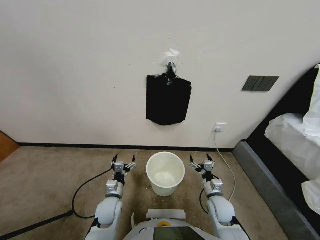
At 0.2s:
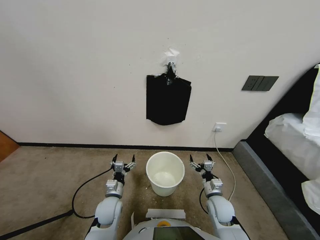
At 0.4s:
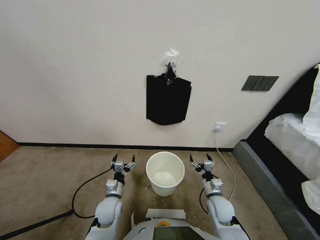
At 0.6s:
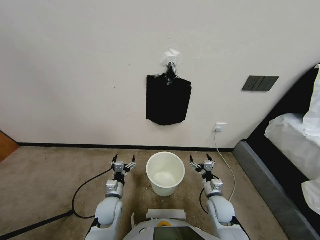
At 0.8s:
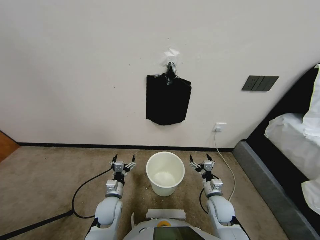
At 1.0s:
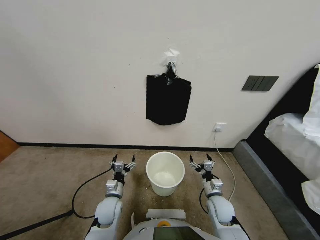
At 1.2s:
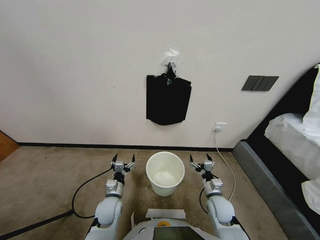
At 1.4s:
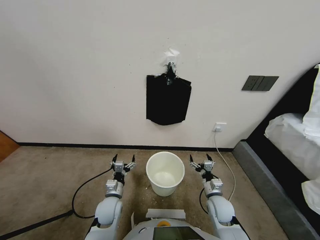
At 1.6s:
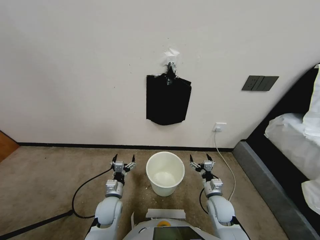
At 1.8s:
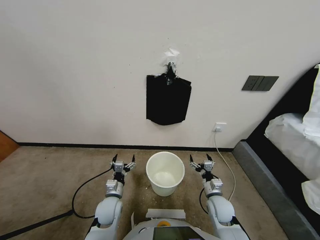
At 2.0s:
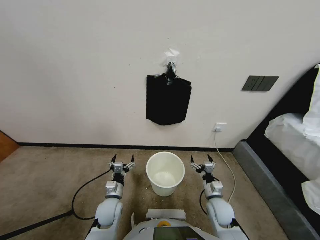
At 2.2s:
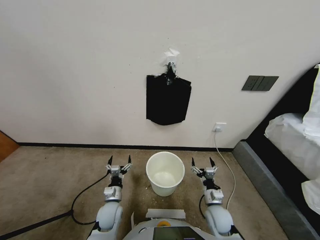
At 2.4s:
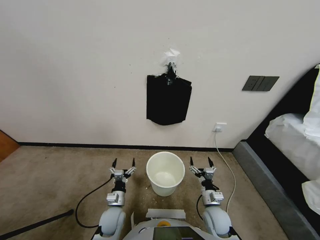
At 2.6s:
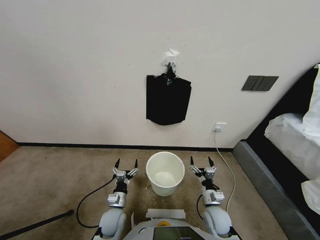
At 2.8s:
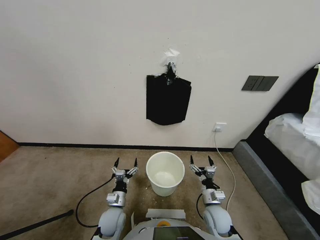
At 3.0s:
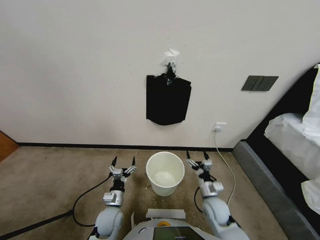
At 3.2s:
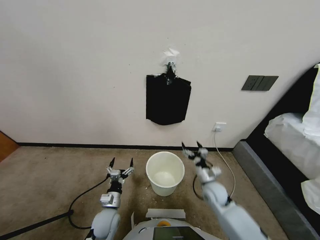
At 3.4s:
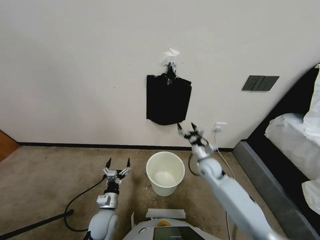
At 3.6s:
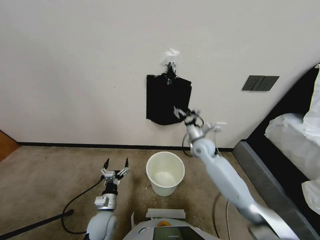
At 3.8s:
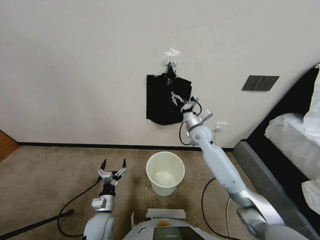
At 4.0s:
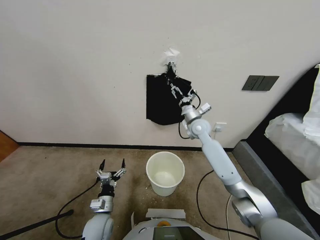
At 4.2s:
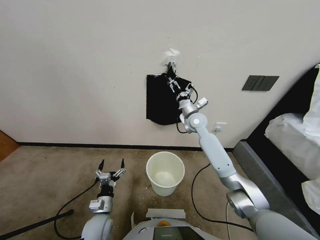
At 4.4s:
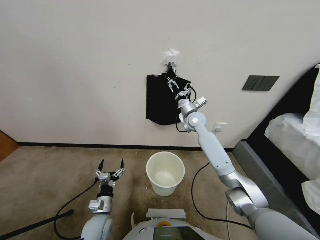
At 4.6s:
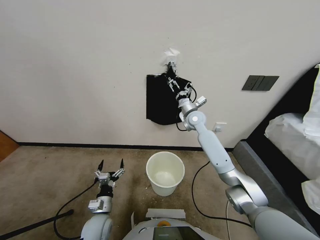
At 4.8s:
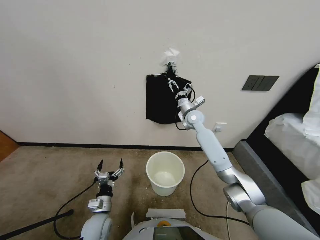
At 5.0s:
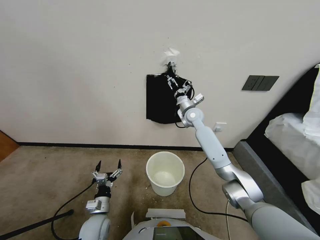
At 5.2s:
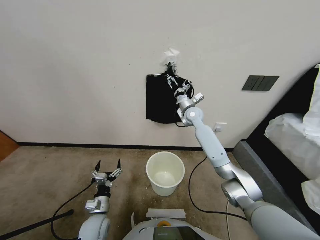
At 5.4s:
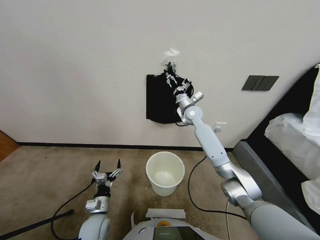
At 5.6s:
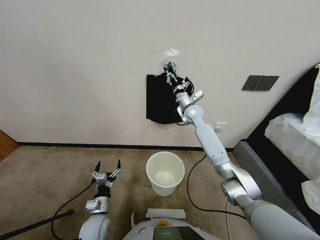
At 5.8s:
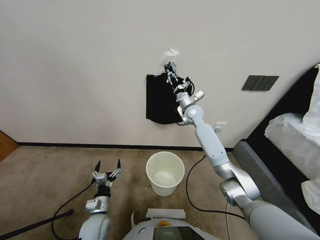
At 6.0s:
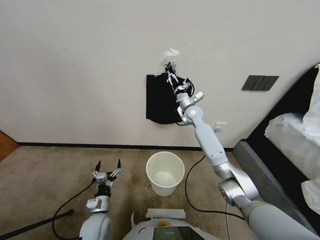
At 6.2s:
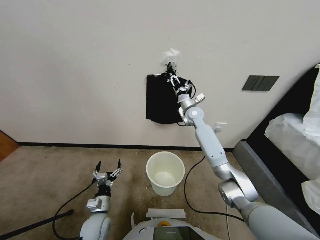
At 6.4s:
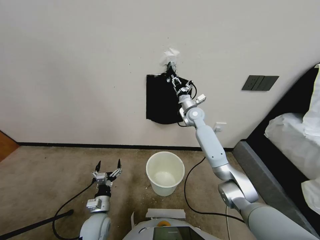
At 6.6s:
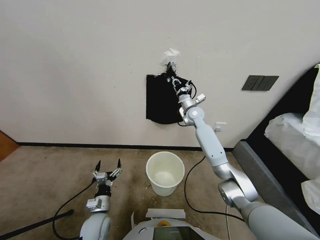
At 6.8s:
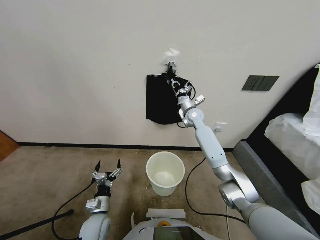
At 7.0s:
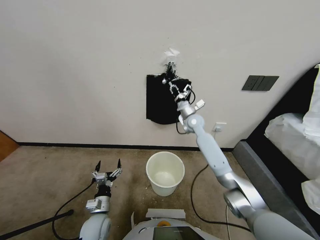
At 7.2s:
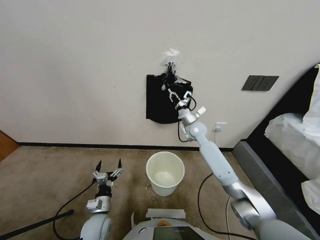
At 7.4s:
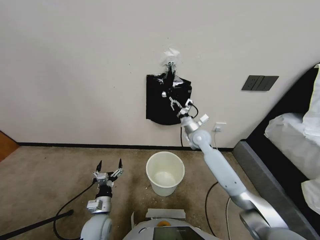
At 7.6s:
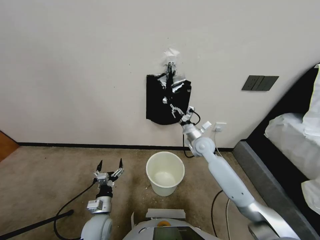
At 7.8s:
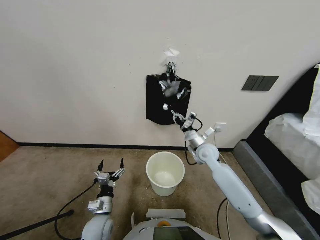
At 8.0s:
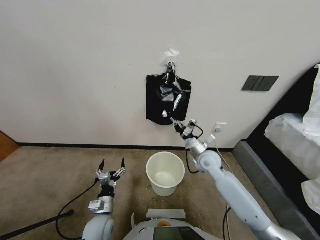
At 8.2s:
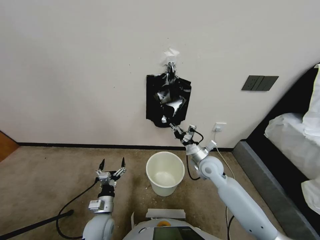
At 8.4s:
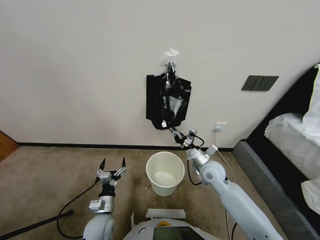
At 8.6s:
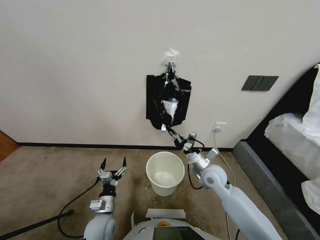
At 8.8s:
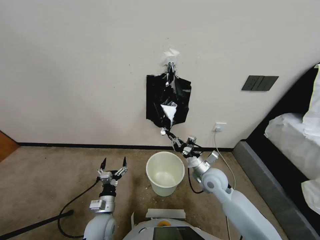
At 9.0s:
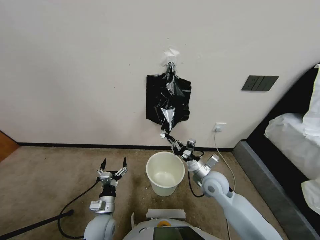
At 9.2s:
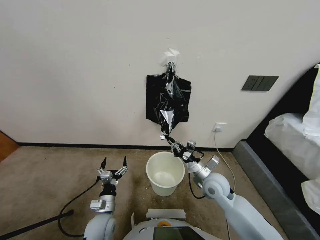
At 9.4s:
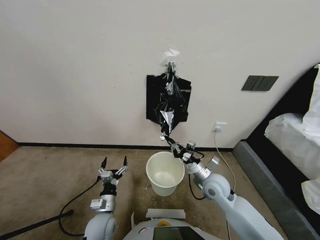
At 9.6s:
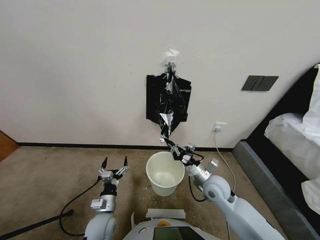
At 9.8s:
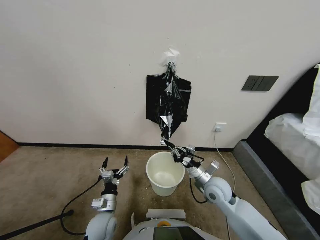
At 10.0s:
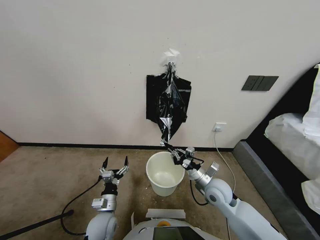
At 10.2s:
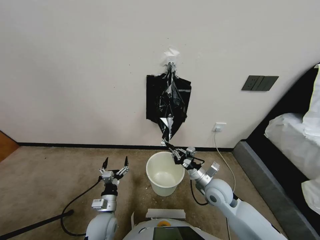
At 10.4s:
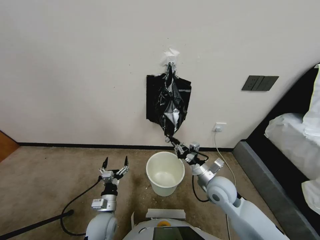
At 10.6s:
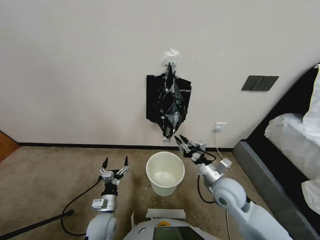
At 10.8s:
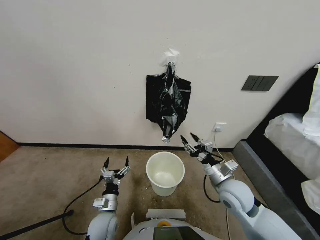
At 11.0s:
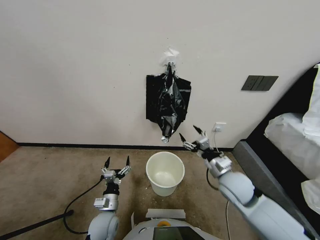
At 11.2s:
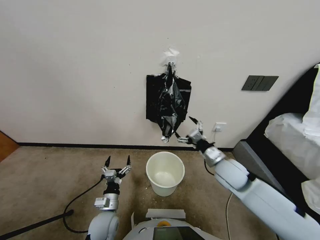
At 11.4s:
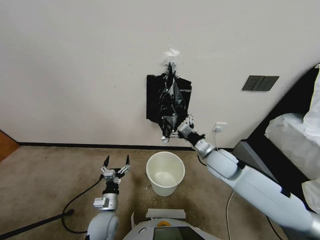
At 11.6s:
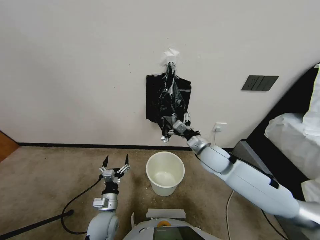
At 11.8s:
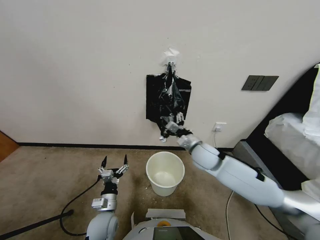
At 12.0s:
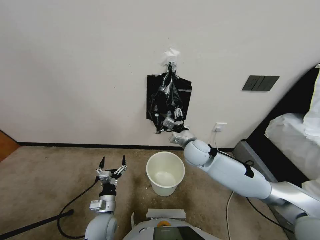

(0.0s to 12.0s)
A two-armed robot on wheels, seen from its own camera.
Task of the whole recording: Place a trash bag onto the trash bin.
1.6s - 3.0s: The grippers make only small movements.
3.0s - 4.4s: The right gripper goes roughly 35 cm forward and upward.
4.4s - 6.0s: The right gripper closes its fingers.
6.0s - 7.6s: The right gripper is displaced backward and downward by some 15 cm, and closes its fingers.
7.6s - 9.0s: The right gripper shifts about 15 cm backward.
9.0s - 10.4s: The grippers stay close to where they were, moving slightly.
10.4s - 12.0s: The right gripper goes about 15 cm forward, to the left and upward, and opens.

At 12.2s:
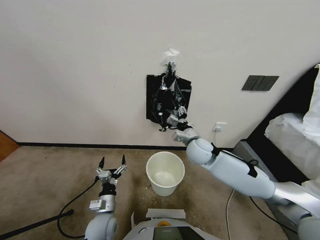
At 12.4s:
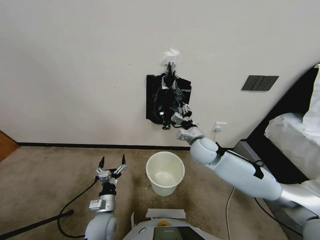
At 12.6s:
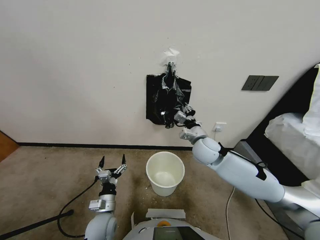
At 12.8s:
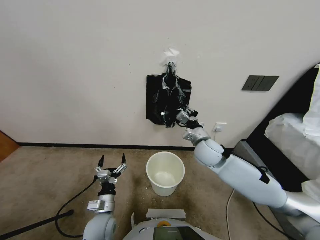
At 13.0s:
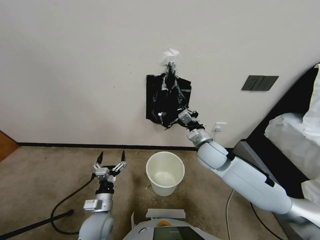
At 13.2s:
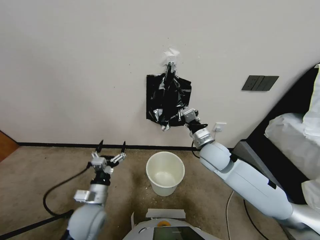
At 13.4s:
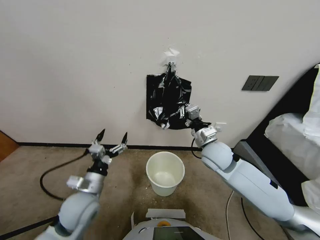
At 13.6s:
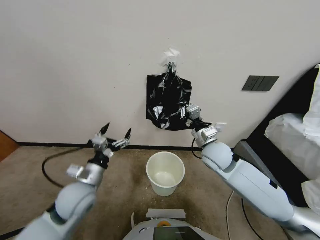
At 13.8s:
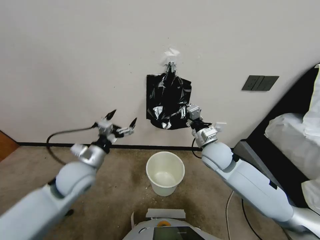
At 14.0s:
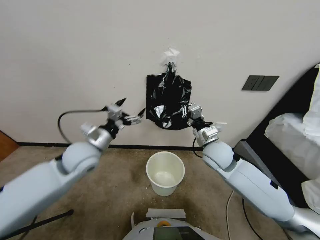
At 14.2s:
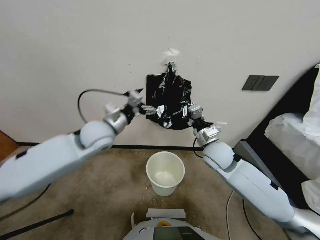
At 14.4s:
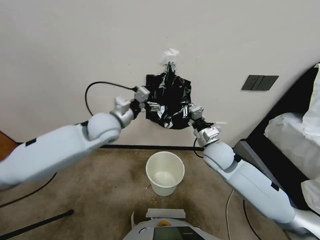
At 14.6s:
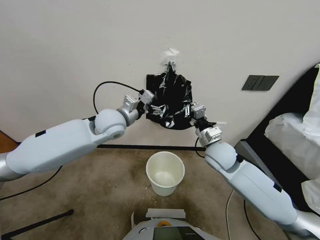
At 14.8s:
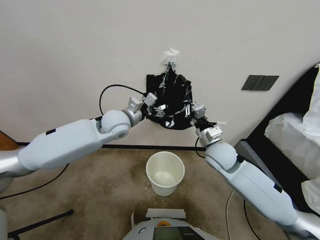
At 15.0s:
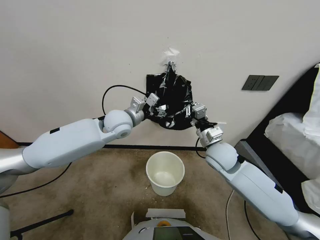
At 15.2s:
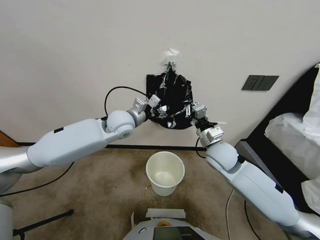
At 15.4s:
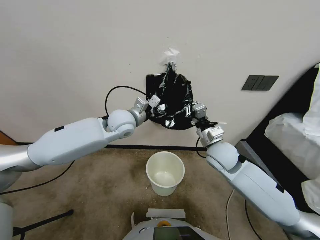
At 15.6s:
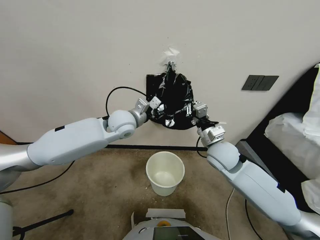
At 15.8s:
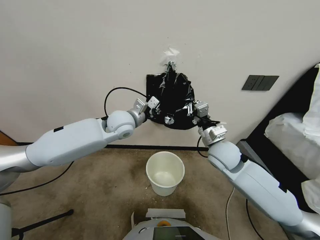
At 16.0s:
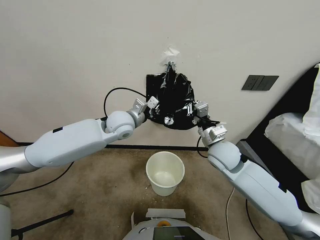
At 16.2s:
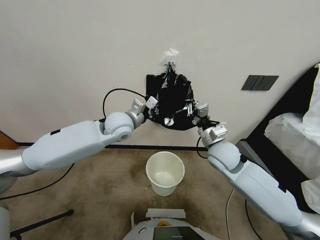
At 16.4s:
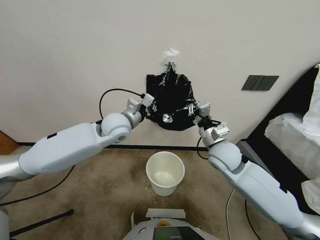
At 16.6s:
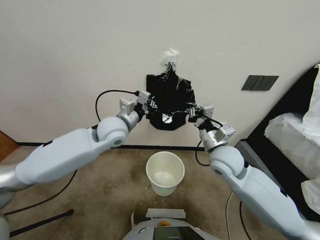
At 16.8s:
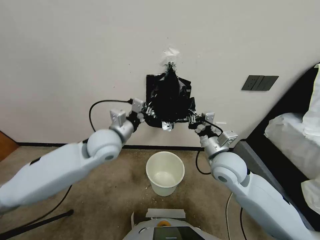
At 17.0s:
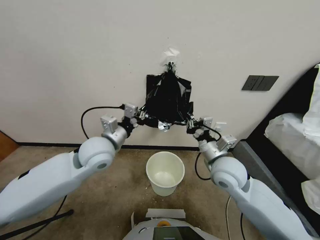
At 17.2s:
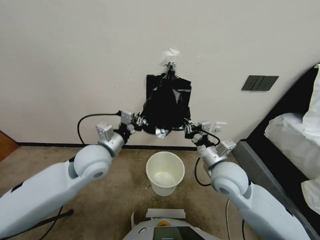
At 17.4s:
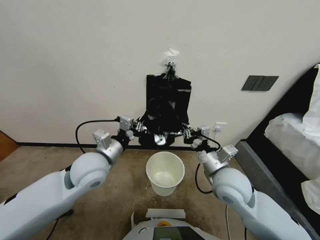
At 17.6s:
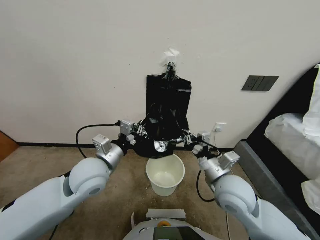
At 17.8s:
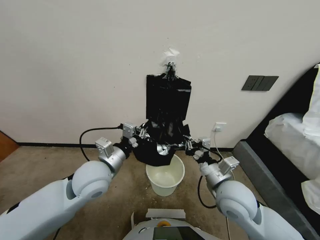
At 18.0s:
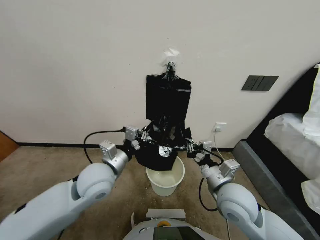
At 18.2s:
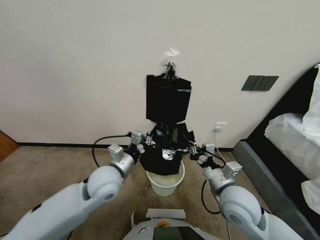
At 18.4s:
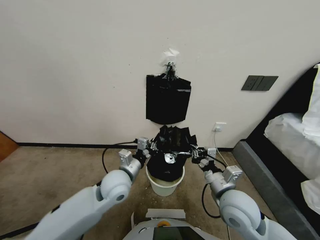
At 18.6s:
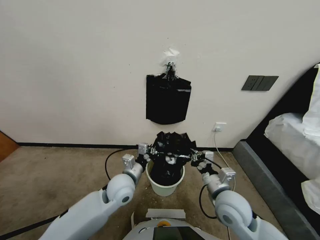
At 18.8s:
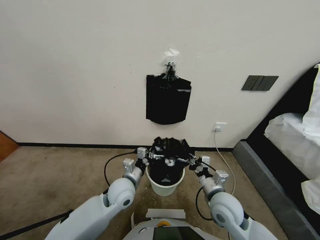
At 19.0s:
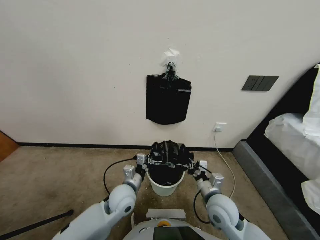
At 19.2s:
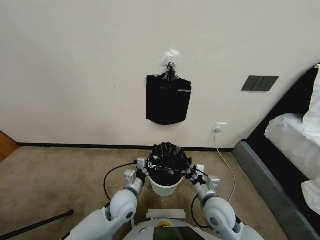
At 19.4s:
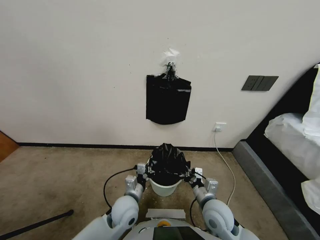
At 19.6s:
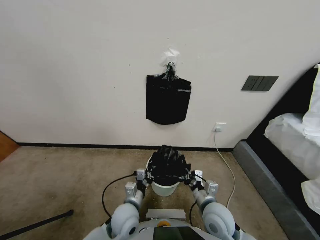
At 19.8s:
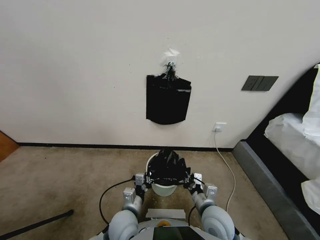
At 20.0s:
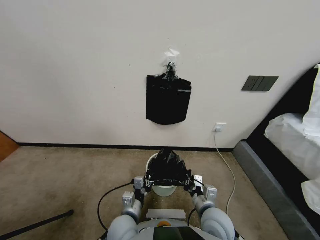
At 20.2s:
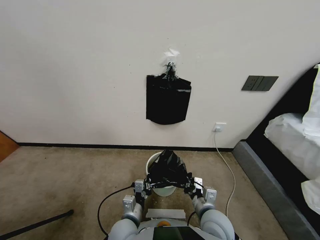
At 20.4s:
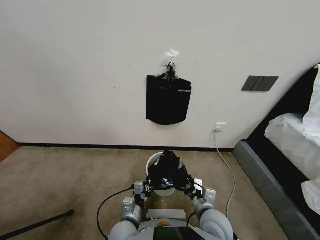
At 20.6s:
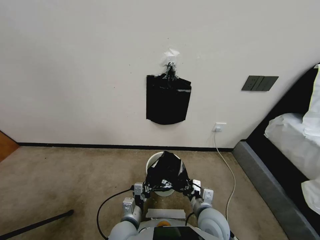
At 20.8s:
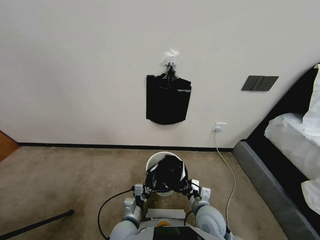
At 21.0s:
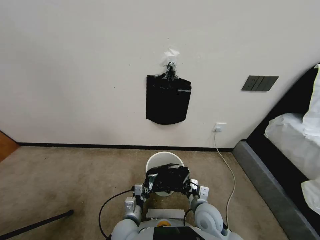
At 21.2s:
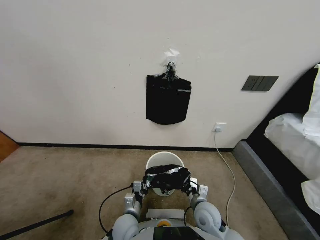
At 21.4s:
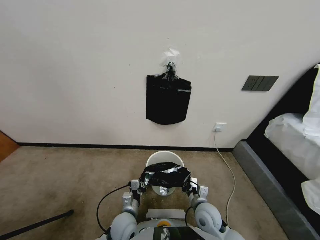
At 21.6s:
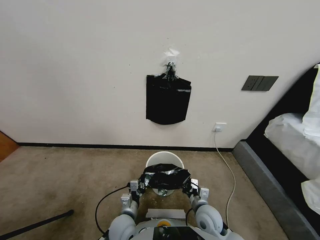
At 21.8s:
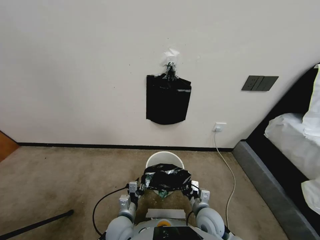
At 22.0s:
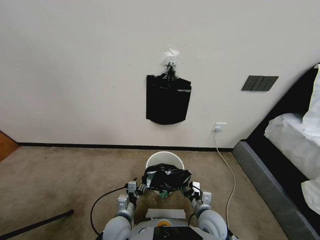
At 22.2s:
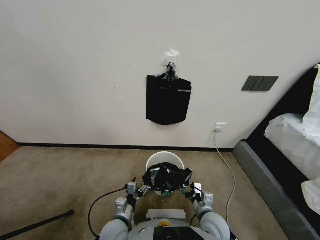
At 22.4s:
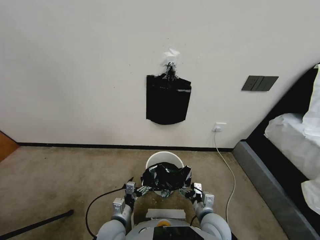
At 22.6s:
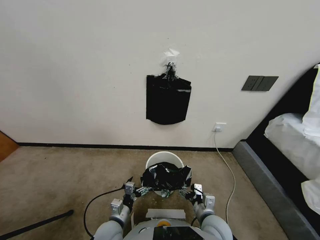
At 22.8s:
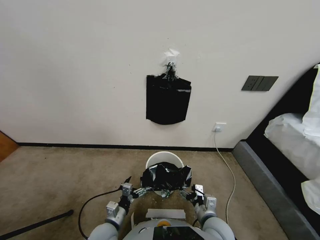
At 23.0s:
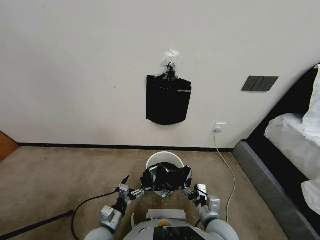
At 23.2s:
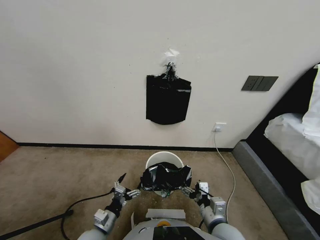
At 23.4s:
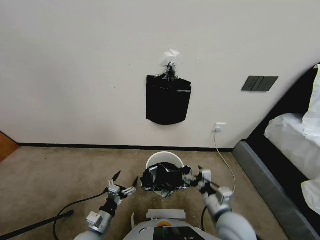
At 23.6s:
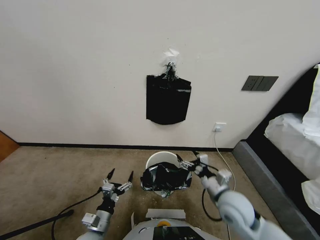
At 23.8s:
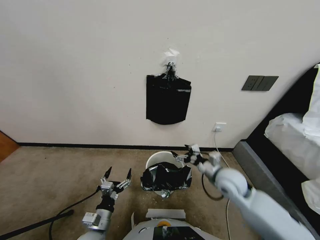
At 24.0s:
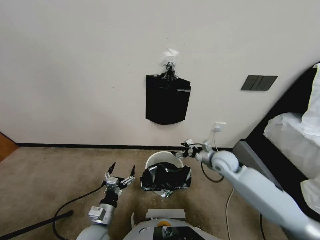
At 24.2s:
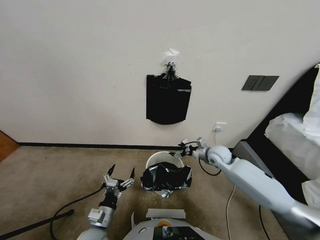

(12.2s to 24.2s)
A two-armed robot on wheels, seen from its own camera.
Task of the whole recording: Place a trash bag onto the trash bin.
12.2s - 13.8s: The right gripper ends up about 5 cm from where it was, and closes its fingers. Meanwhile the left gripper shifts some 25 cm upward and forward.
13.8s - 15.2s: The left gripper moves forward, to the right and upward, some 15 cm.
15.2s - 16.6s: The left gripper heads backward, covering about 5 cm, and closes.
16.6s - 18.2s: The right gripper is displaced backward and downward by roughly 10 cm. The left gripper moves downward and backward, roughly 15 cm.
18.2s - 19.8s: The right gripper is displaced downward by about 10 cm. The left gripper moves downward and backward, approximately 15 cm.
19.8s - 21.2s: The grippers both shift downward by approximately 5 cm.
21.2s - 22.6s: The left gripper moves to the left, some 5 cm, and opens; the right gripper goes roughly 5 cm backward, and opens up.
22.6s - 24.2s: The right gripper is displaced forward by some 30 cm. The left gripper moves roughly 5 cm.
